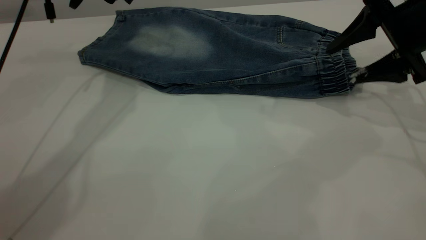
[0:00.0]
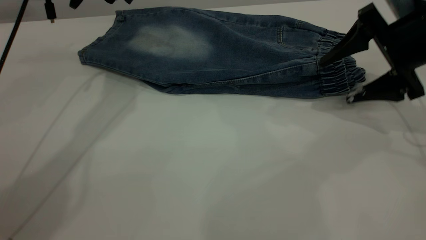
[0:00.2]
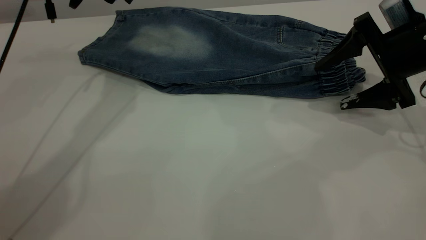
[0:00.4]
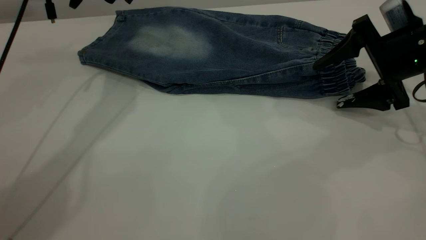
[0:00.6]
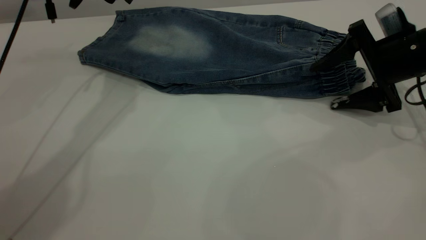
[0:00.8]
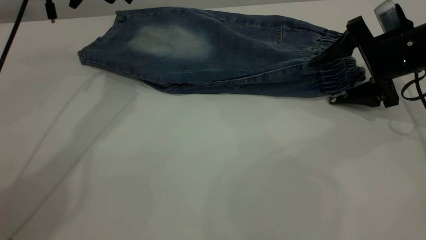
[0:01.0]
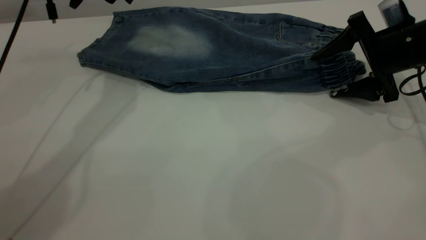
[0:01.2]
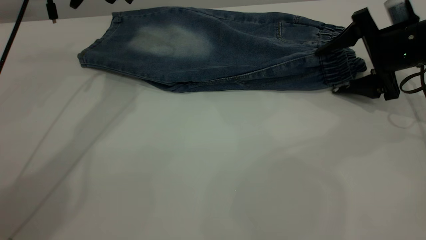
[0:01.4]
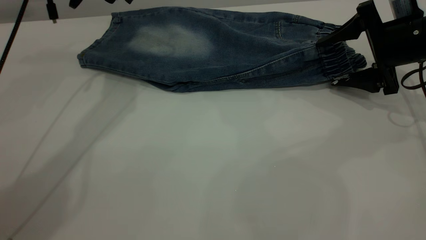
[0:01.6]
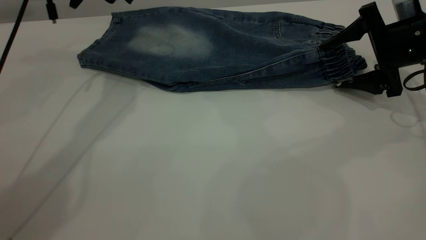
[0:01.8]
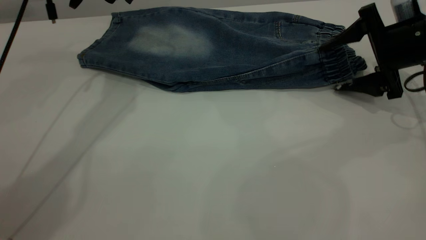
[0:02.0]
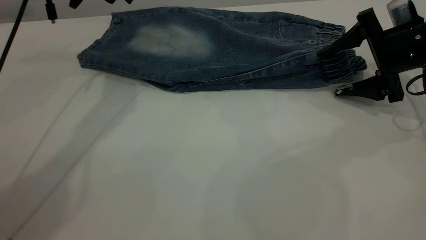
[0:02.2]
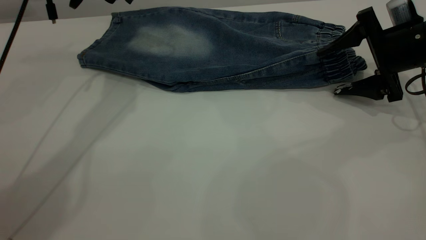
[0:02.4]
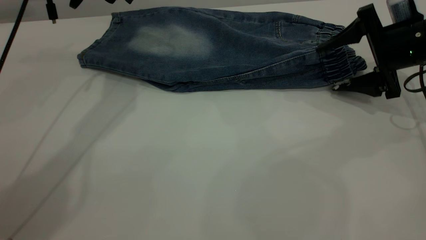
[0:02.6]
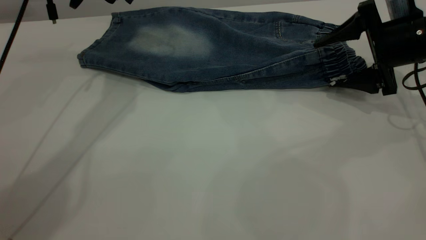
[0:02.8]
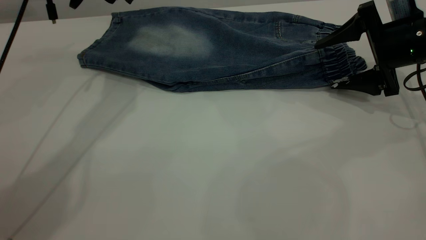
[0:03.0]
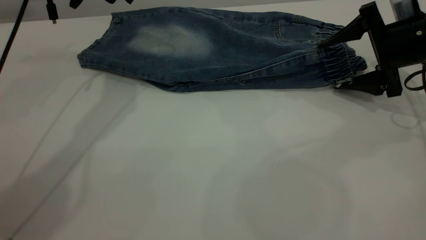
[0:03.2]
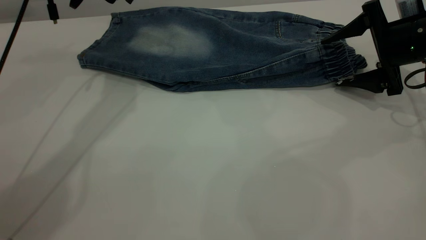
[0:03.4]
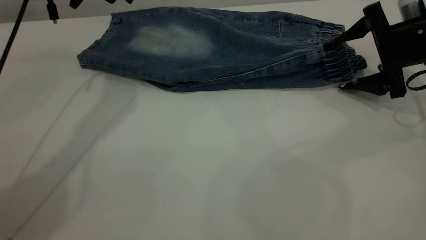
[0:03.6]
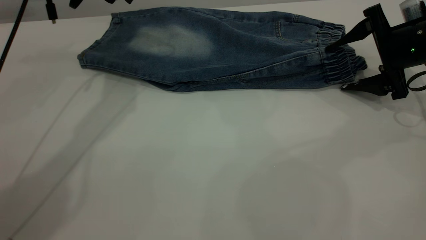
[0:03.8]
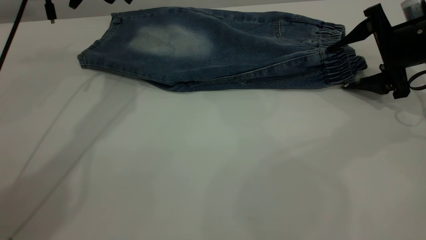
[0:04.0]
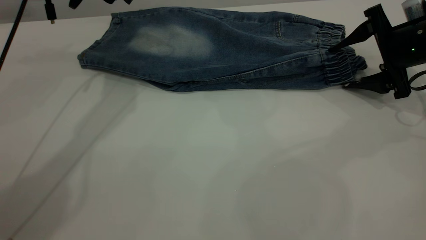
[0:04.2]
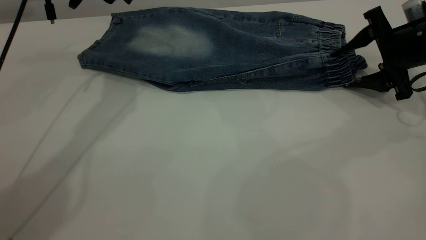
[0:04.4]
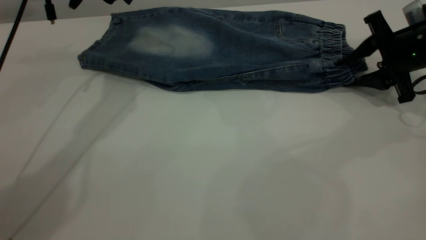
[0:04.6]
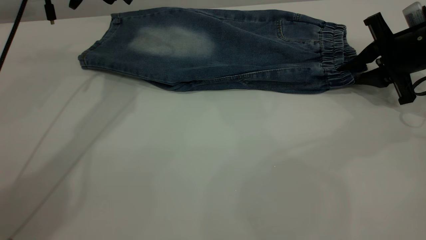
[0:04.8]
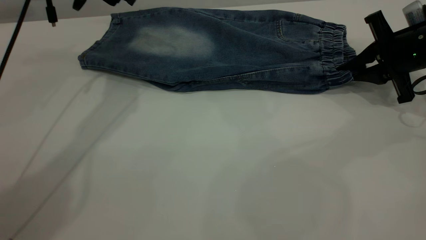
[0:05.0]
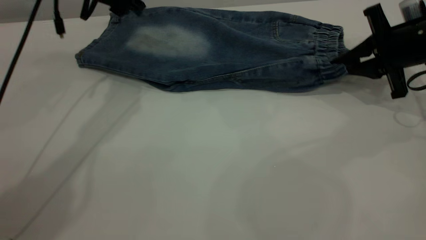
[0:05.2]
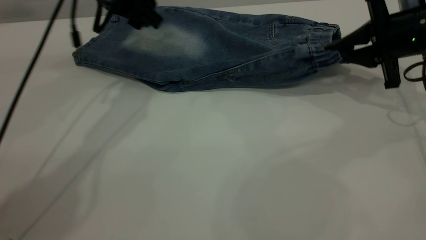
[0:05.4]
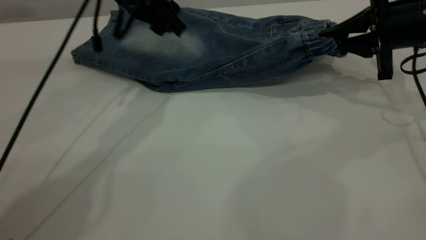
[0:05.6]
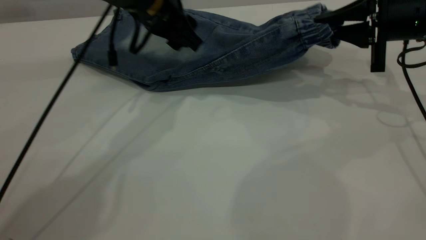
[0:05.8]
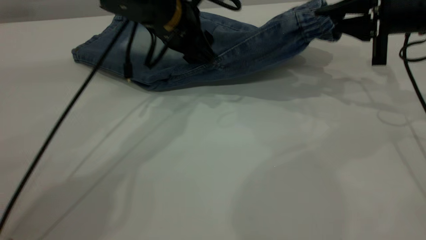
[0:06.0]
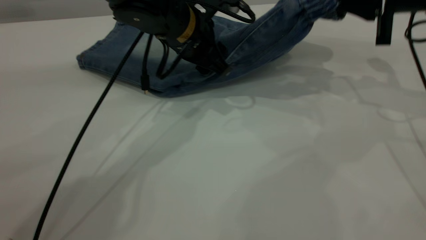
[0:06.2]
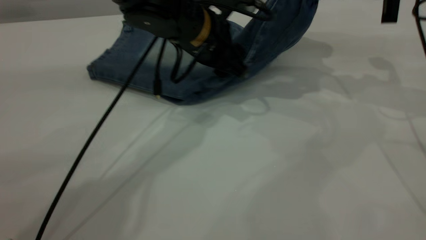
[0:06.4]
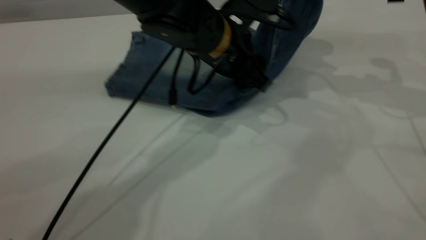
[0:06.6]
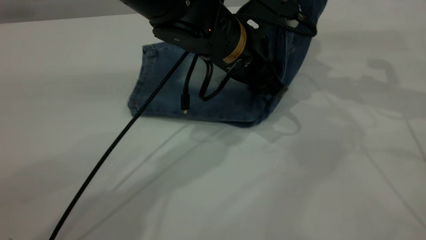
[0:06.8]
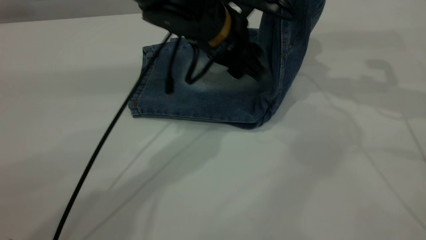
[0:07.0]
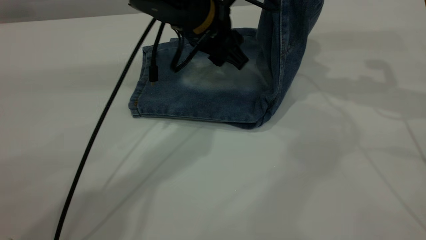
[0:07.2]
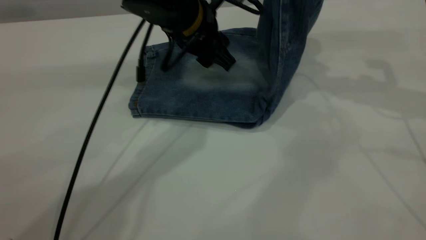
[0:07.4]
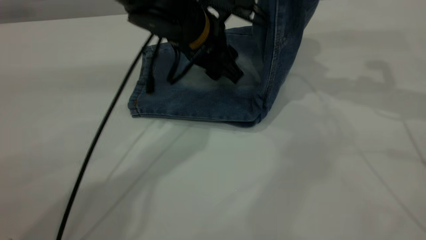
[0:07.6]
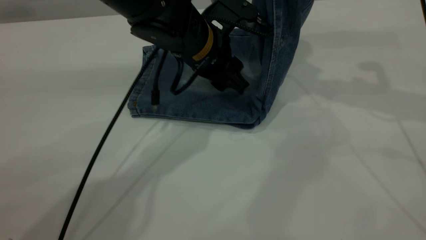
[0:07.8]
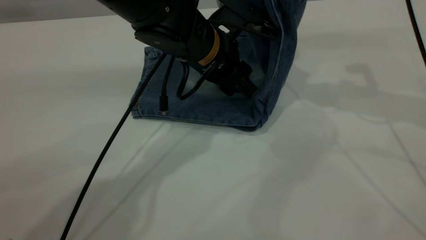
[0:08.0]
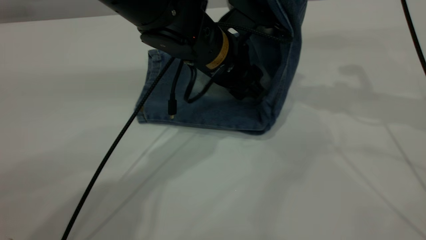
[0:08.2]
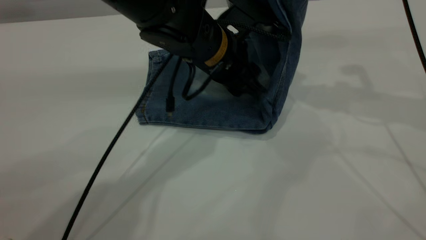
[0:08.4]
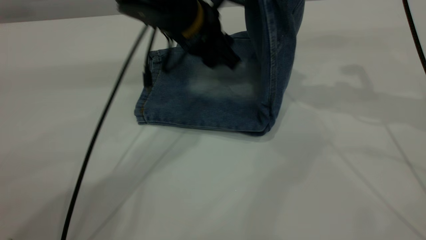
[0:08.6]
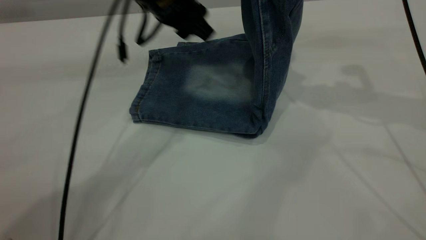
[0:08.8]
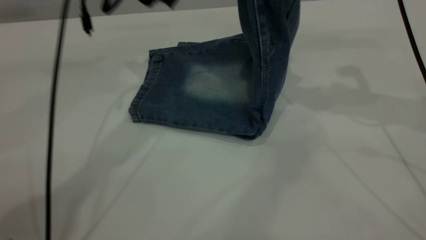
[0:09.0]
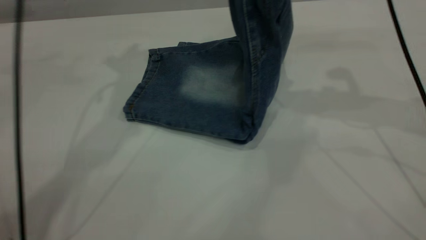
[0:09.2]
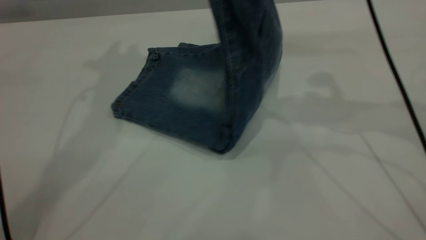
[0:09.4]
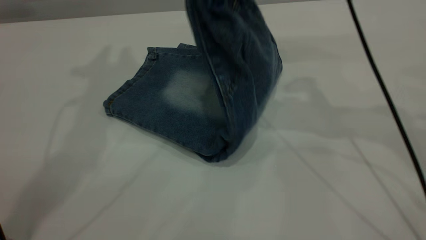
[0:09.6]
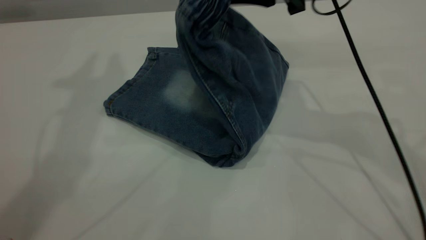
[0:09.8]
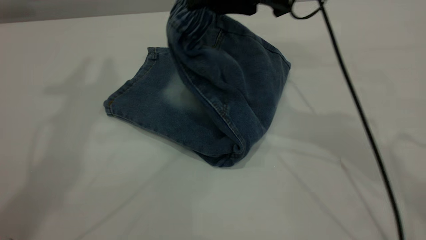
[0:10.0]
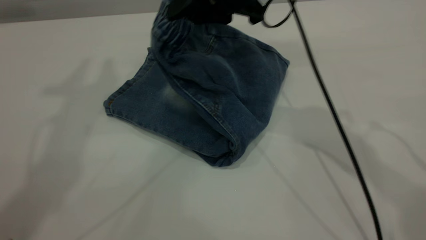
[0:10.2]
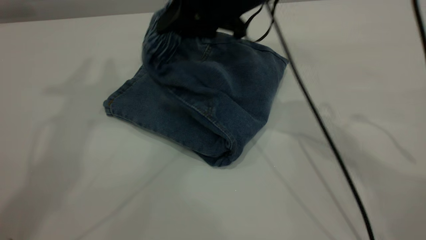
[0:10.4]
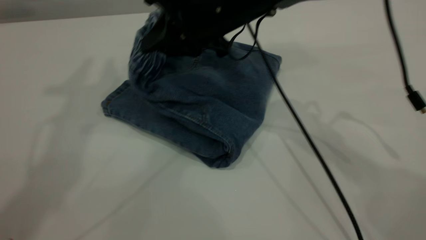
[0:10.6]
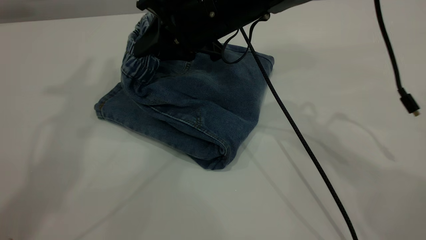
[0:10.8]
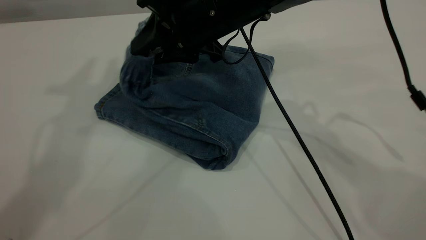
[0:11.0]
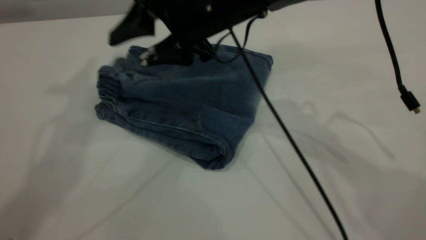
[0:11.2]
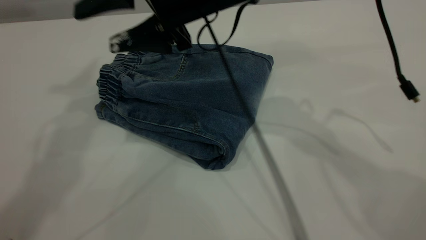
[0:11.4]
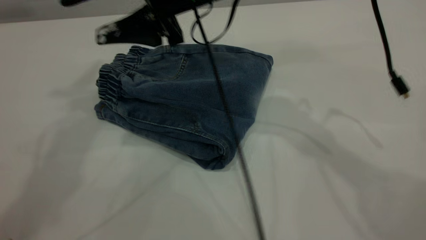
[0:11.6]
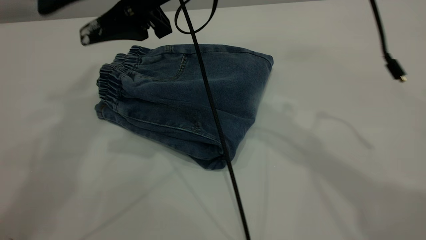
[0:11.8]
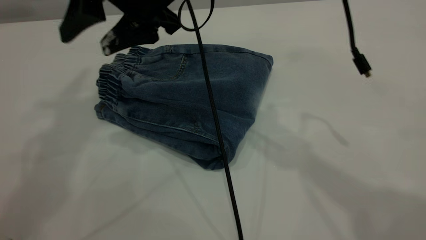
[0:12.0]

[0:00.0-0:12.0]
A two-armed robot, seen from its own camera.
Step, 0:00.0 to 0:11.2: Fold your pants from right to left.
0:00.0 to 0:01.6: The right gripper shifts by roughly 5 cm.
0:01.6 to 0:04.4: There are only small adjustments of the grippers.
0:04.4 to 0:06.0: The left gripper goes some 15 cm to the right, downward and backward, while the right gripper moves upward, approximately 5 cm, and closes its fingers.
0:06.0 to 0:07.6: The right gripper heads upward, covering some 10 cm.
0:07.6 to 0:09.0: The left gripper heads upward and to the left, covering some 15 cm.
0:09.0 to 0:10.4: The right gripper travels to the left and downward by approximately 20 cm, while the left gripper moves upward, roughly 25 cm.
0:10.4 to 0:12.0: The left gripper ends up about 5 cm from where it was. The right gripper moves to the left, approximately 10 cm, and opens its fingers.

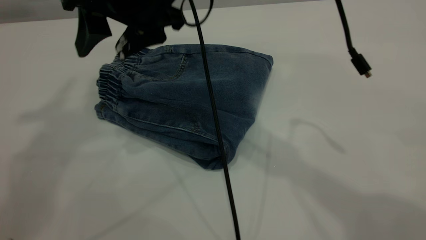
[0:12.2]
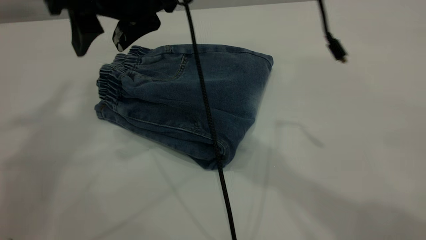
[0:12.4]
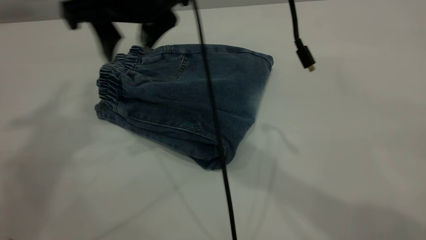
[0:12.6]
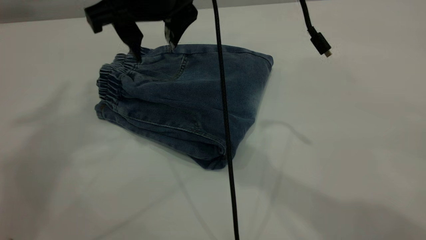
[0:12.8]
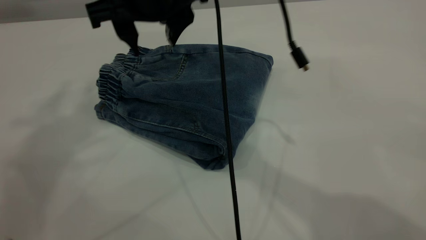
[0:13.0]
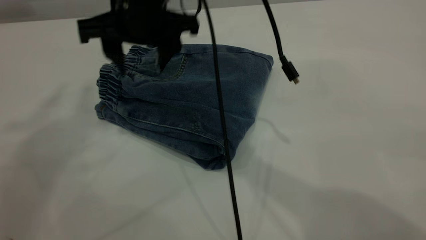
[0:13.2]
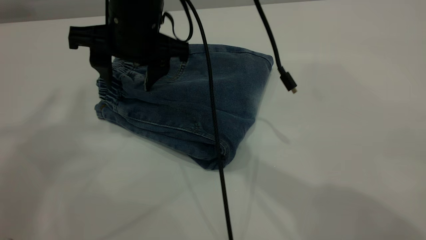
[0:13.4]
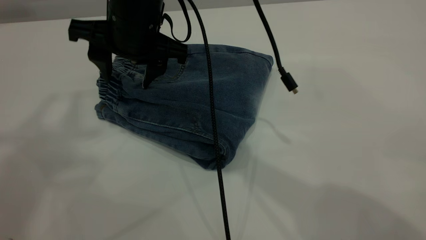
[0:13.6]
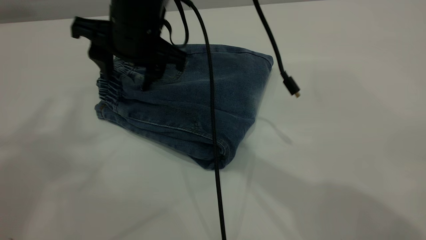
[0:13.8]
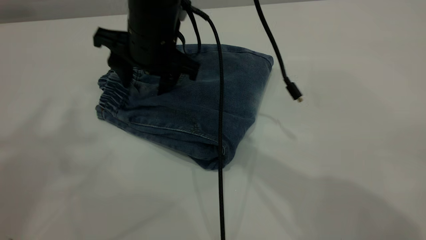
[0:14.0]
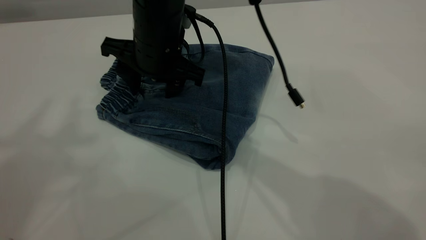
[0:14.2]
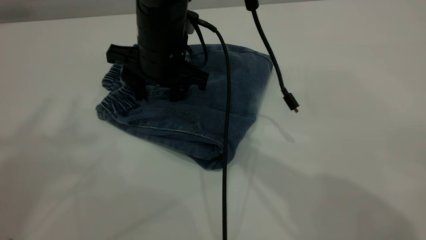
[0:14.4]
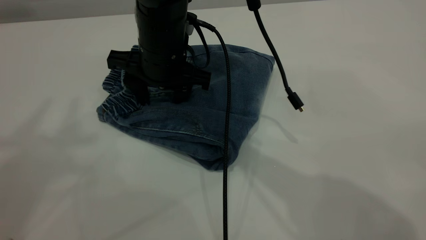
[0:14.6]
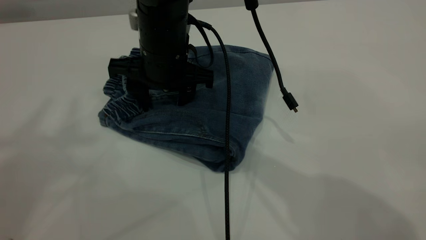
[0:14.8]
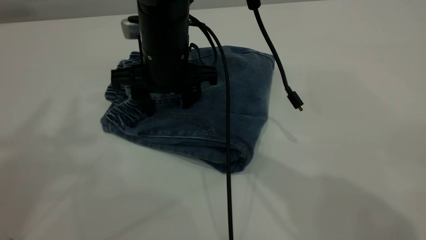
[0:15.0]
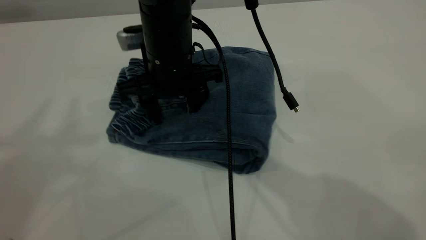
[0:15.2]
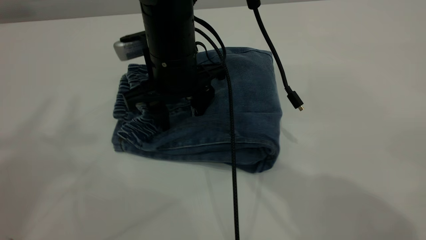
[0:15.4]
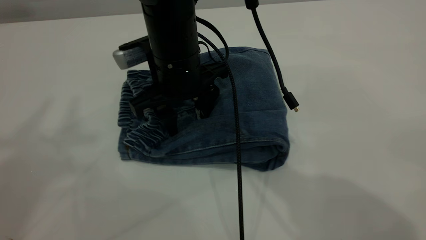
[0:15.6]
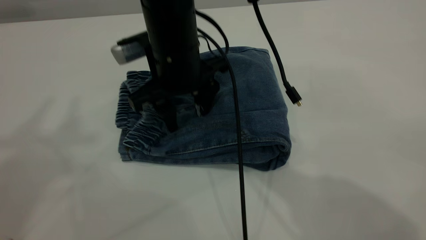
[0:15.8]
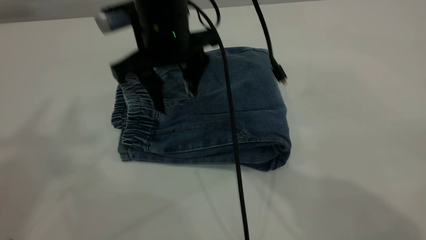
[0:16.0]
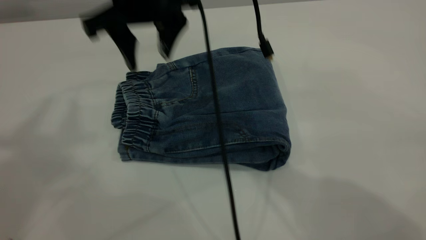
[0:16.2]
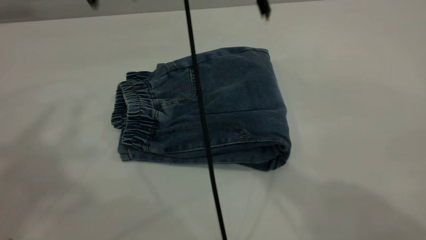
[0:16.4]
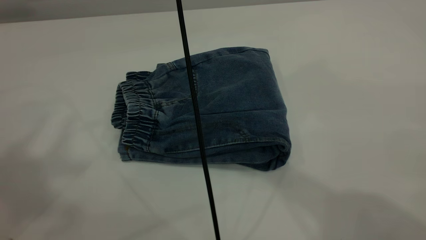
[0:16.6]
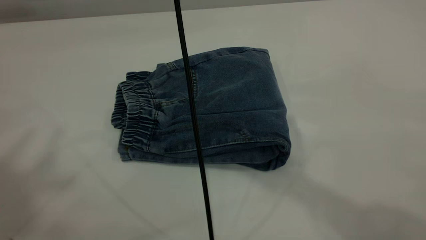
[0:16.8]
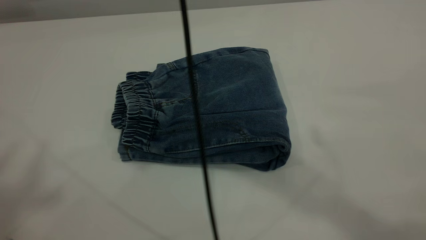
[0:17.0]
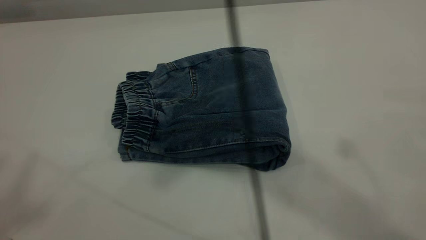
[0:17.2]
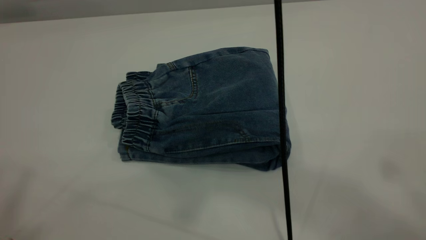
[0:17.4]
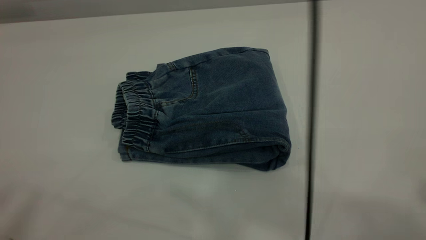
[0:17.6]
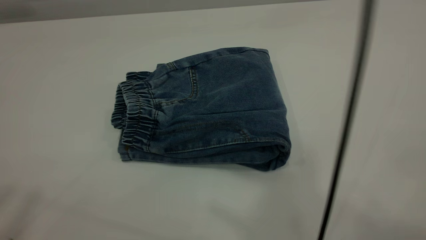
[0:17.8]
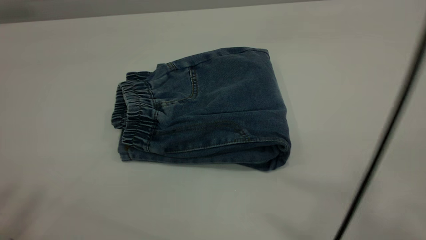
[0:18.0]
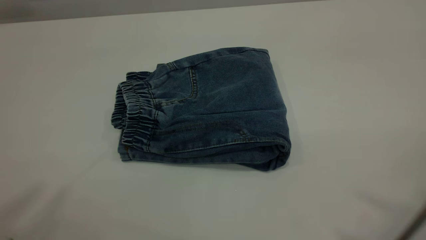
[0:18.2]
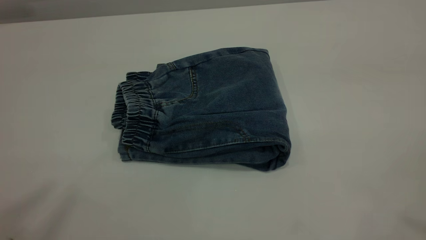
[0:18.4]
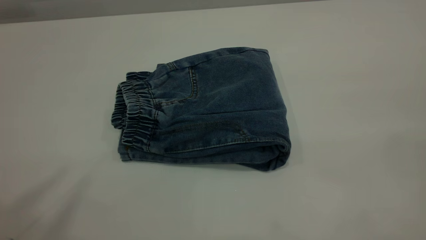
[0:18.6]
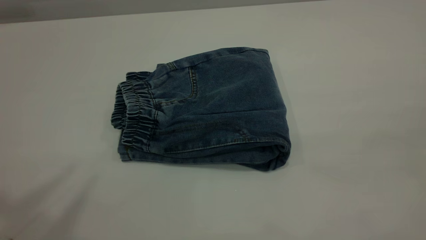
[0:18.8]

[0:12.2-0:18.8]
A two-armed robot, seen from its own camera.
0:12.2 to 0:13.8: The left gripper shifts by roughly 5 cm. Meanwhile the right gripper moves downward, roughly 5 cm.
0:13.8 to 0:15.4: The right gripper shifts by approximately 5 cm.
0:15.4 to 0:17.2: The right gripper moves upward, some 40 cm, while the left gripper is displaced backward by approximately 10 cm.
0:17.2 to 0:18.8: The right gripper heads to the right, backward and downward, covering some 40 cm. Meanwhile the left gripper heads downward, covering some 10 cm.
